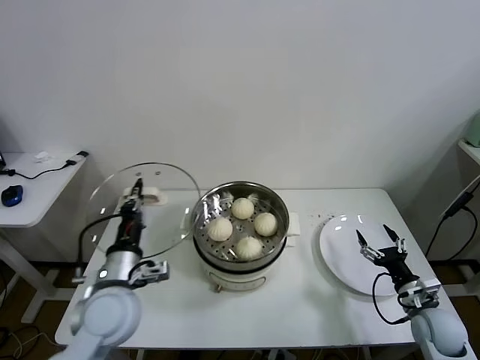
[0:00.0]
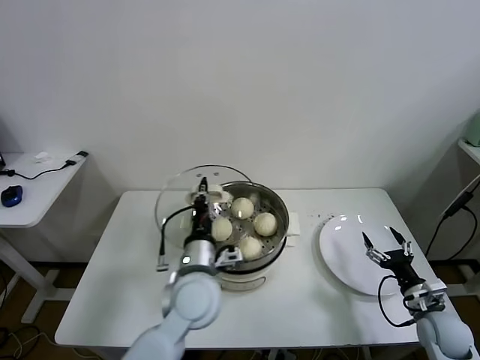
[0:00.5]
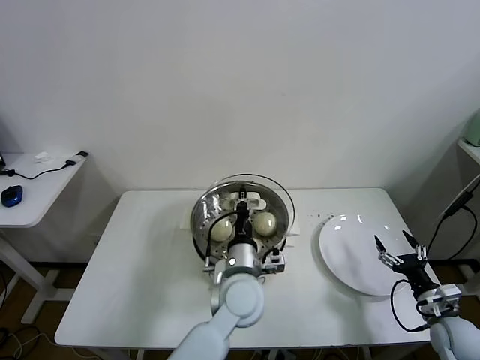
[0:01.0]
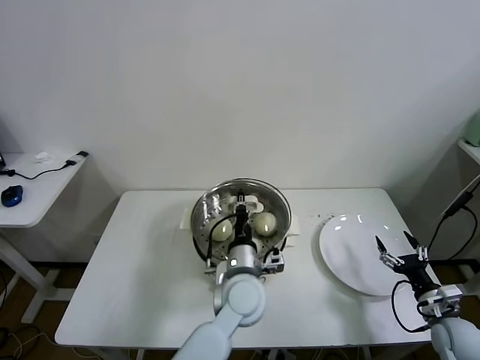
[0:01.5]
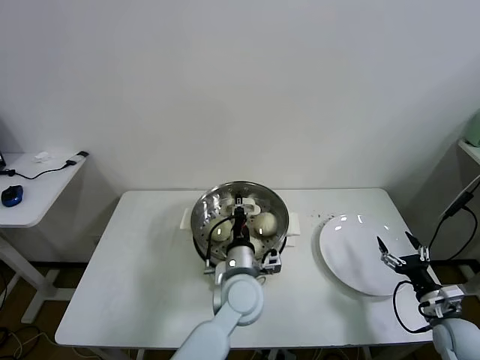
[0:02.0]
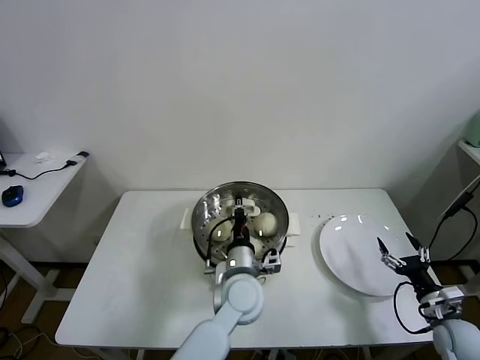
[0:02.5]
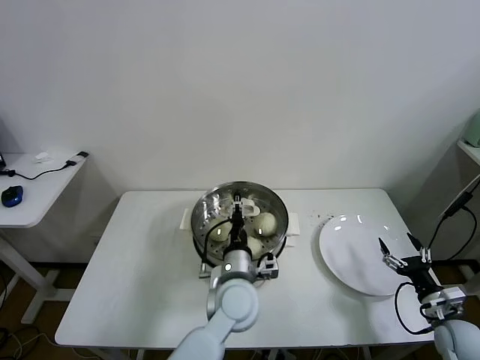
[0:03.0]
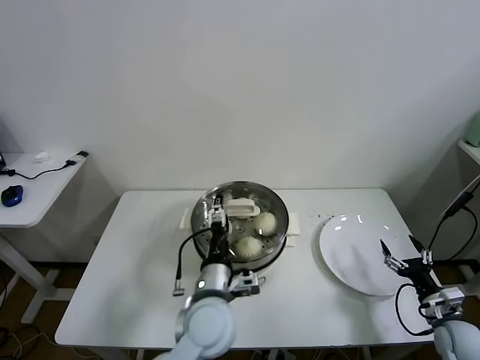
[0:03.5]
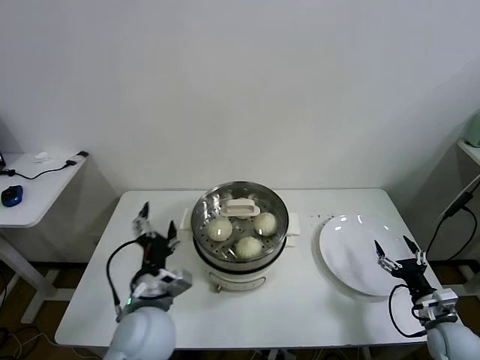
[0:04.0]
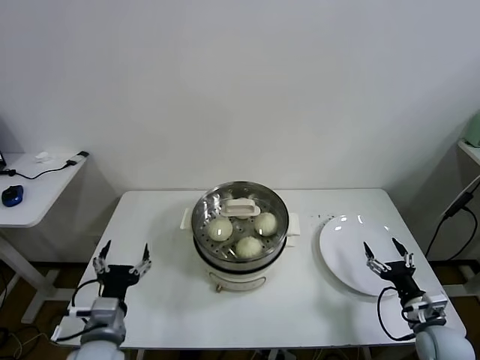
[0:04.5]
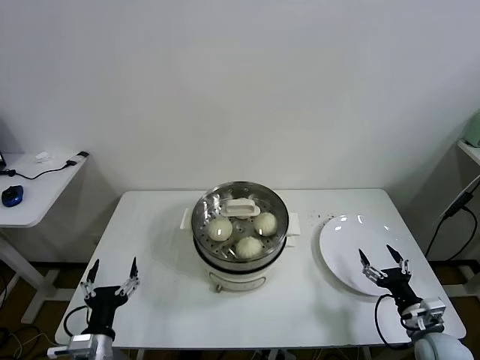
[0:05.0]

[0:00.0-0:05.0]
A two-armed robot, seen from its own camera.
Task of the whole recording: take steamed baozi put them in steamer.
Step, 0:00.0 to 0:03.0: Place the pot lid on the steamer with left gripper.
0:00.0 to 0:02.5: The left gripper is displaced to the right by roughly 25 cm. Meanwhile the right gripper shifts by about 5 cm.
0:02.5 to 0:05.0: The right gripper moves to the left, approximately 5 cm. The left gripper heads to the left and backward, covering approximately 35 cm, and opens its fingers.
